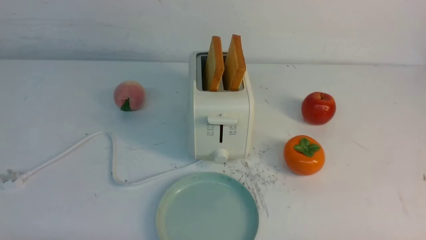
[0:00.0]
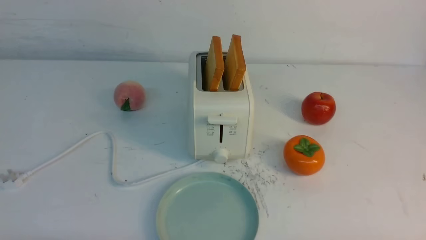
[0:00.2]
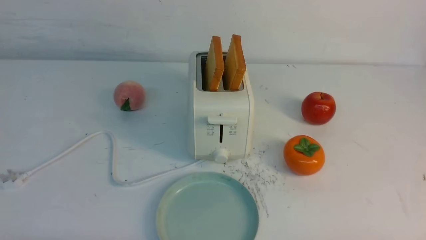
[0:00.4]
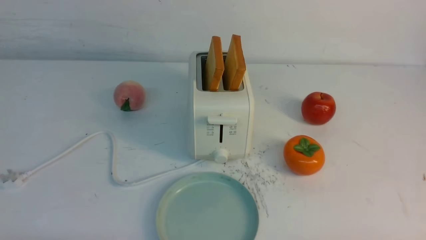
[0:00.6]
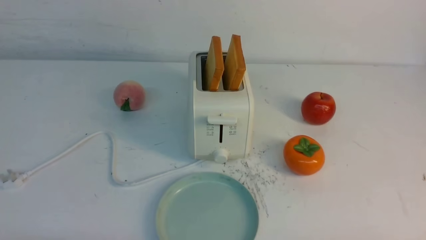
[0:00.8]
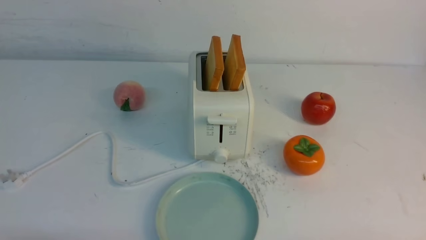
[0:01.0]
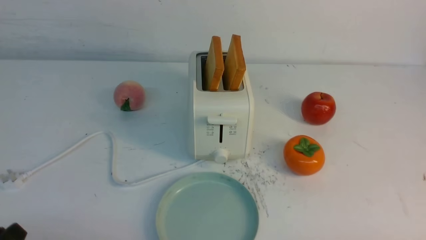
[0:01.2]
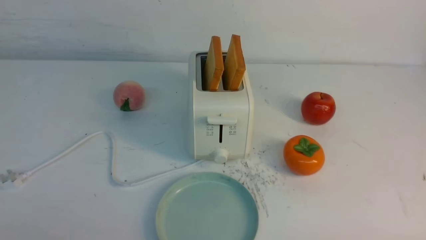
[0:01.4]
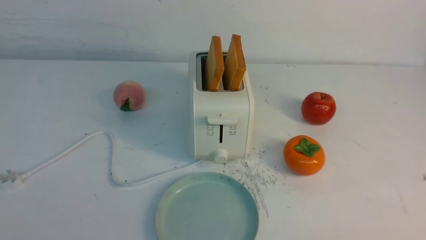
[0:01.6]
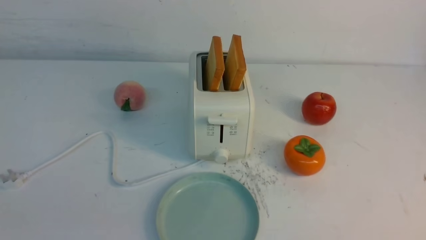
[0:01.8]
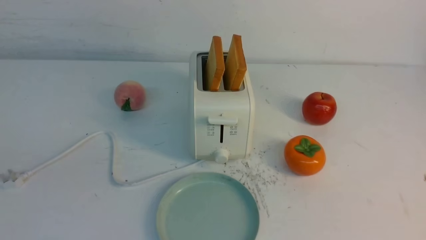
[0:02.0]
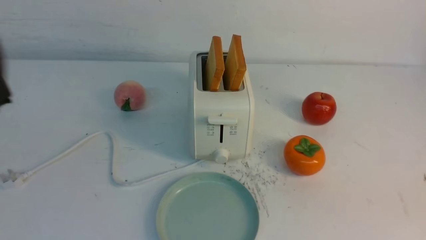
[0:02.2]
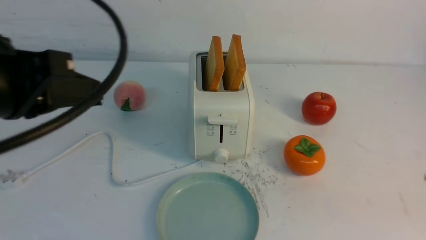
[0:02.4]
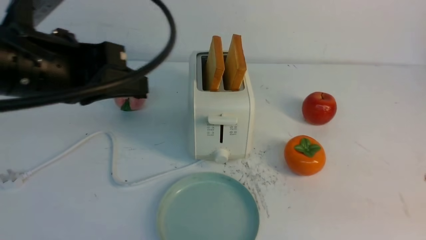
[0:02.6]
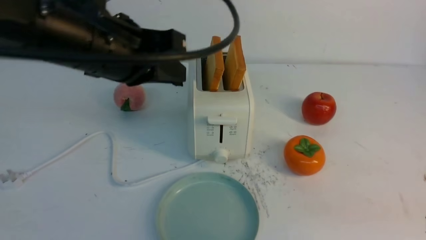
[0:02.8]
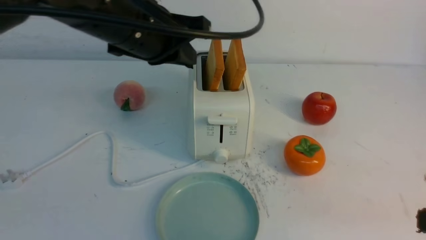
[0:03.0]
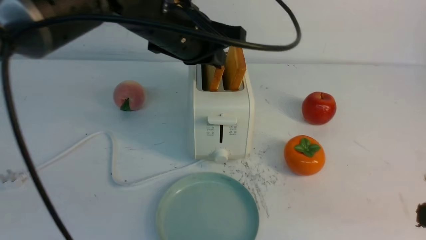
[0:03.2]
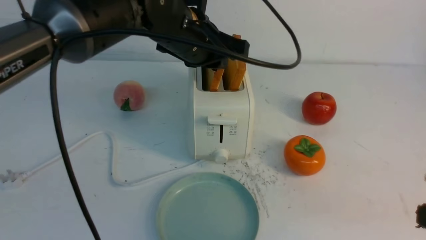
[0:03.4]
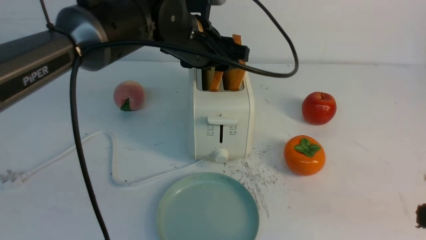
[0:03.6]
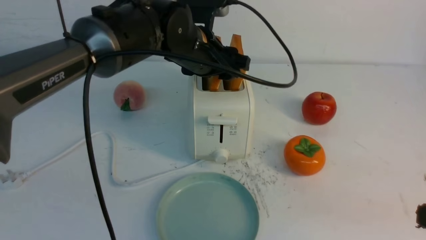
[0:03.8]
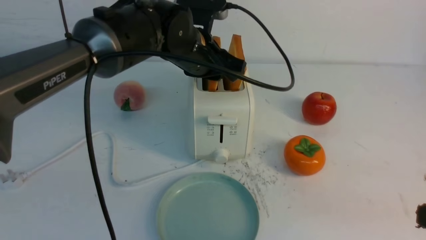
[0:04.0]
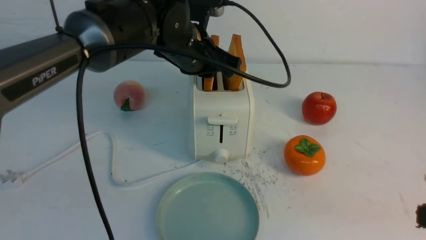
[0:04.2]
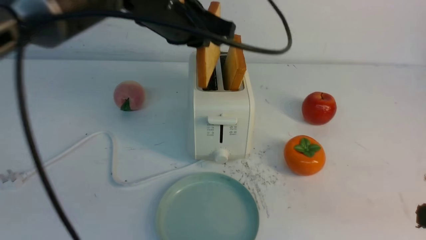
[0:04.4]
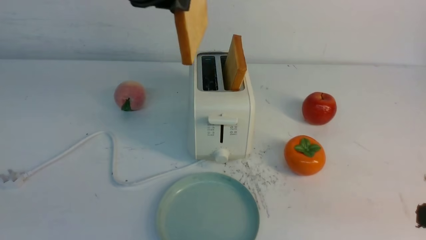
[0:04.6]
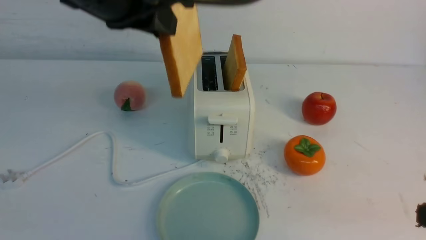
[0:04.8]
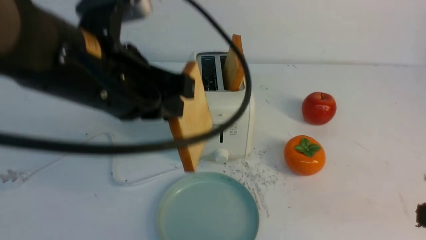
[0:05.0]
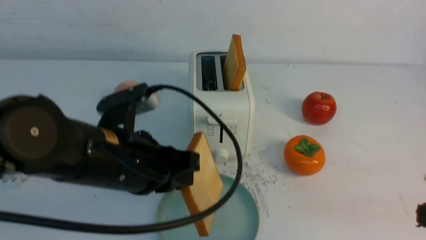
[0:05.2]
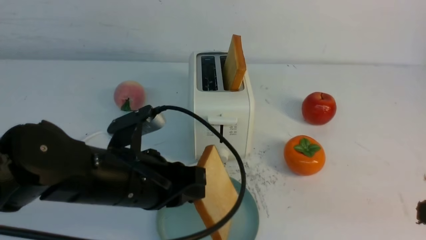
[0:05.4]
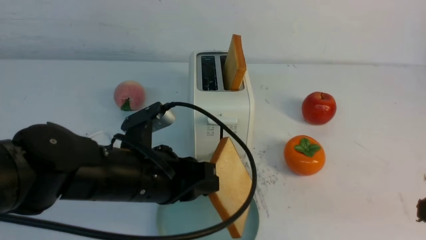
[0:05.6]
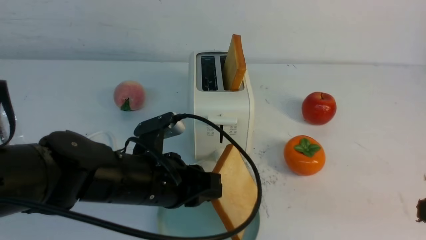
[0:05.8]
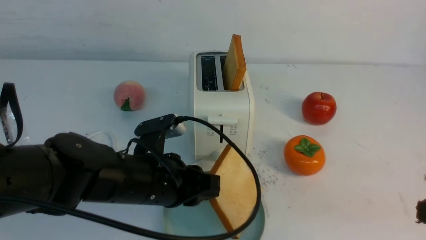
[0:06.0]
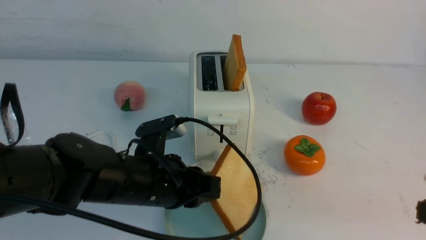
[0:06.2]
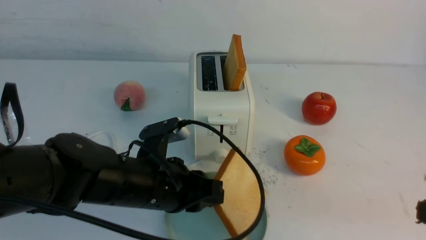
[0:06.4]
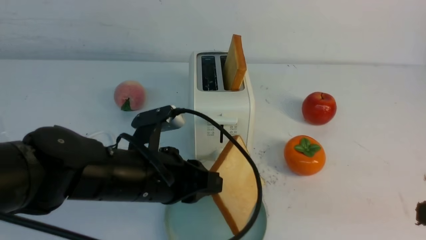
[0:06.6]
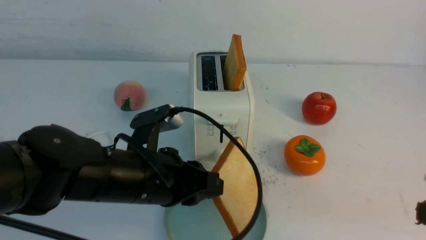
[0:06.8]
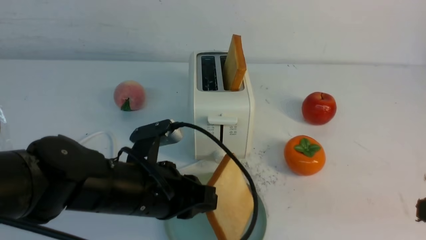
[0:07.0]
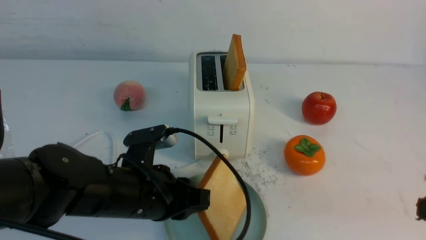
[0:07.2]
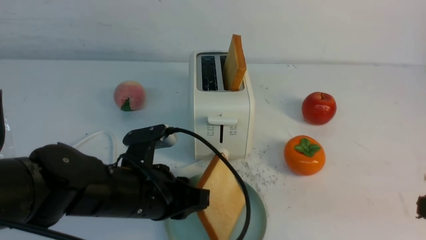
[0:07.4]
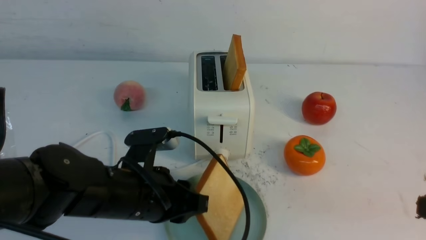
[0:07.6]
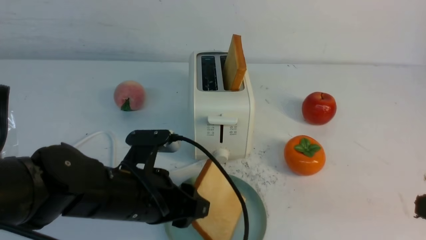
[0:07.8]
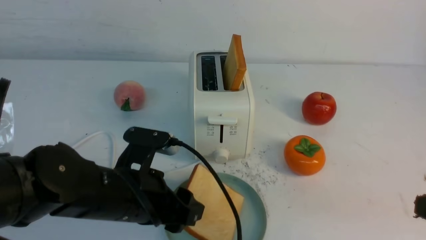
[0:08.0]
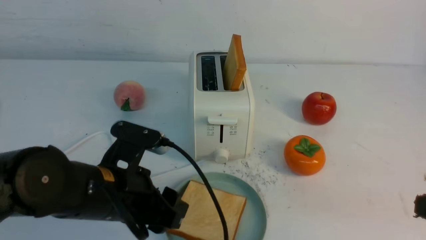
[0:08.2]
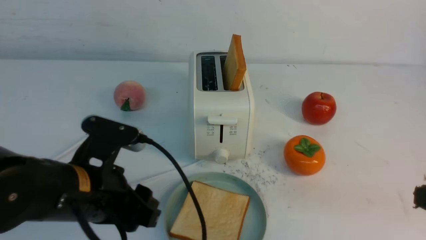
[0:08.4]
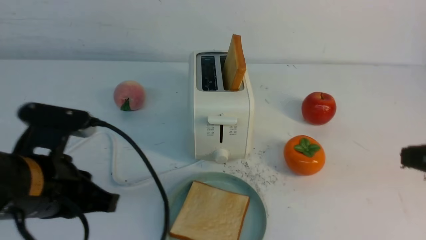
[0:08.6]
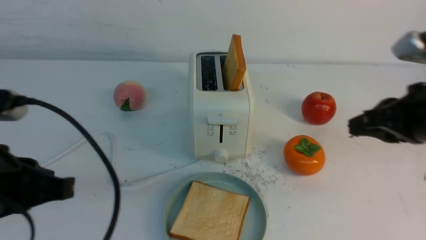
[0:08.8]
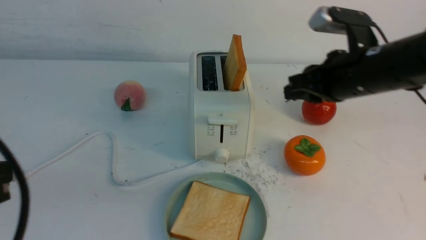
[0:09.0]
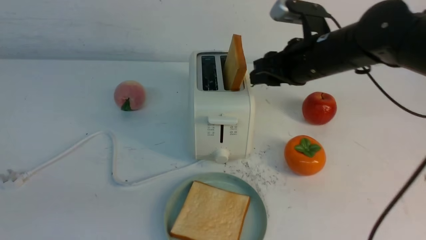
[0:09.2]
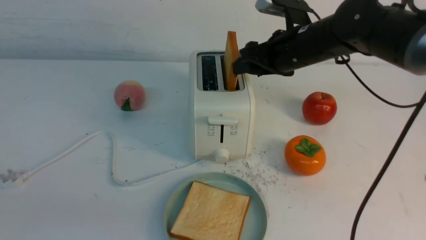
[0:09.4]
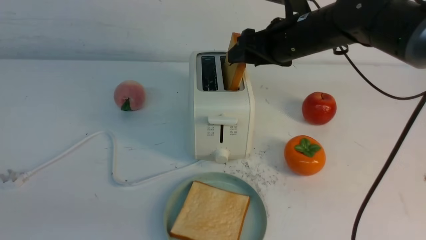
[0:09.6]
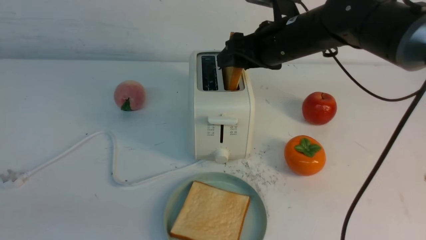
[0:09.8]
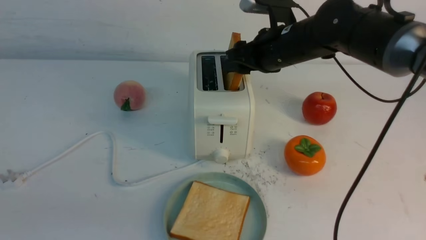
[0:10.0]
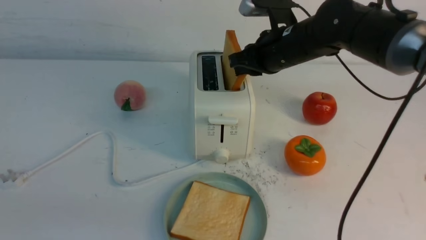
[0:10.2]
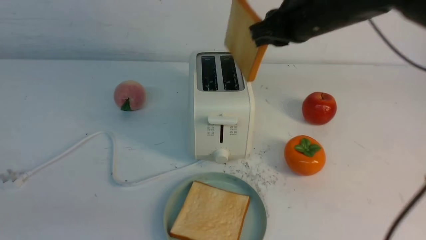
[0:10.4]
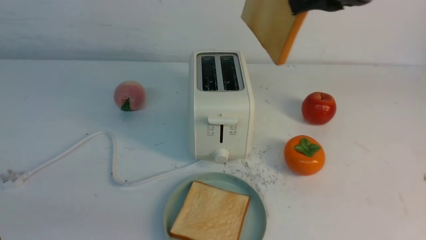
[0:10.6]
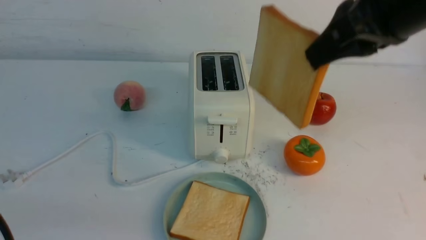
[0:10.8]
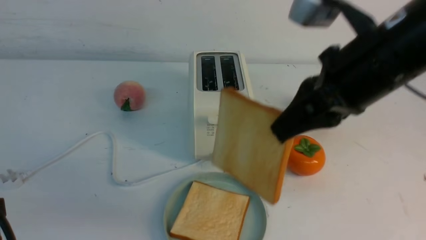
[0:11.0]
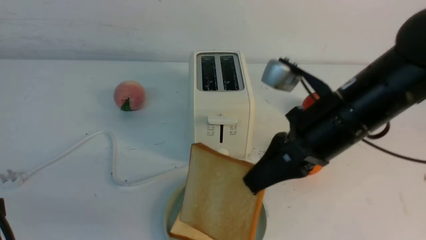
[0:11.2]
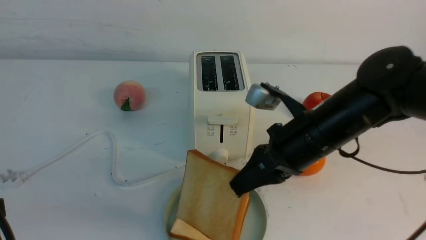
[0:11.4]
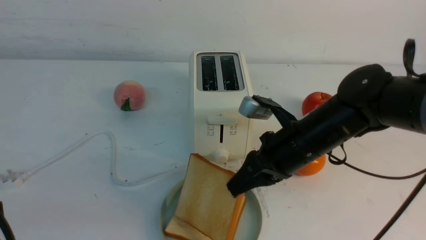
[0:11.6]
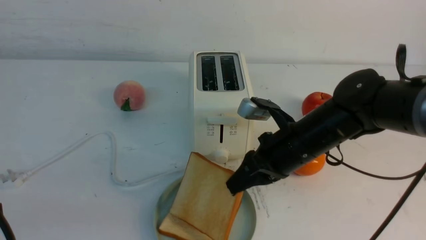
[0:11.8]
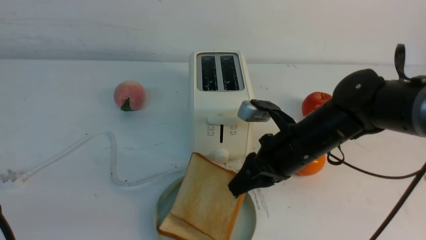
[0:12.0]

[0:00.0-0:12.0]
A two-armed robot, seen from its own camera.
Task of the whole recording: take toasted bread from bread machine on white table place on plate.
Step, 0:00.0 to 0:04.2: use the left arm to take out a slice of bread.
Step, 0:04.6 to 0:08.4: use the left arm to put a slice of bread into the empty plate.
Step, 0:08.6 to 0:10.2: use the right arm to take out a slice of bread.
0:01.6 to 0:03.0: The left gripper is displaced forward, to the right and upward by roughly 35 cm. The right gripper moves upward and forward, about 10 cm, and closes up.
0:03.0 to 0:04.4: The left gripper reaches approximately 5 cm downward, then returns, and opens and closes again.
0:04.4 to 0:06.0: The left gripper is displaced downward and backward by some 20 cm.
0:06.0 to 0:07.6: The grippers stay close to where they were, moving slightly.
0:07.6 to 0:09.0: The left gripper heads upward, to the left and backward, covering some 20 cm, and closes up. The right gripper heads forward and to the left, covering some 25 cm.
0:09.0 to 0:10.4: The right gripper goes some 5 cm upward, goes forward and returns, about 10 cm each way, and opens, then closes again.
0:10.4 to 0:12.0: The right gripper goes roughly 20 cm downward.

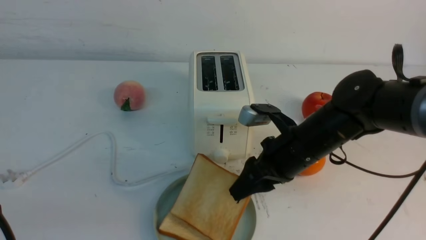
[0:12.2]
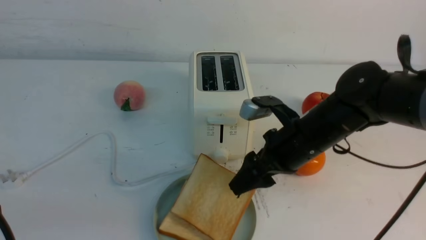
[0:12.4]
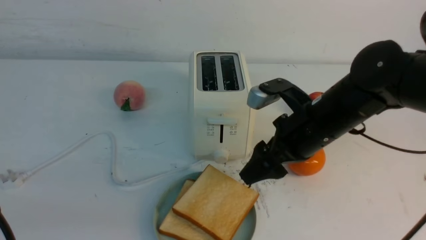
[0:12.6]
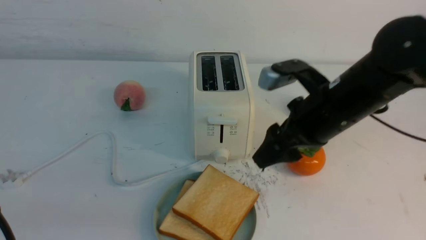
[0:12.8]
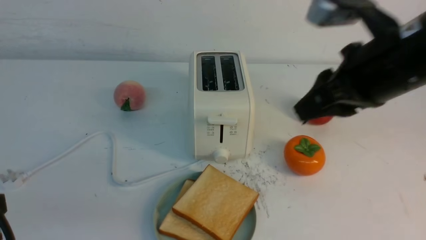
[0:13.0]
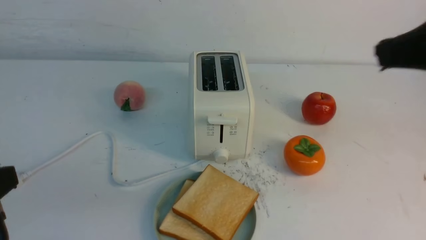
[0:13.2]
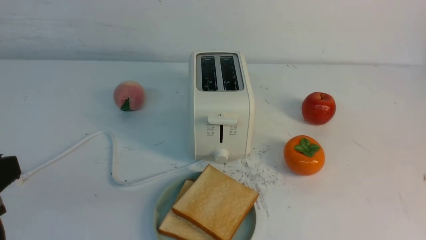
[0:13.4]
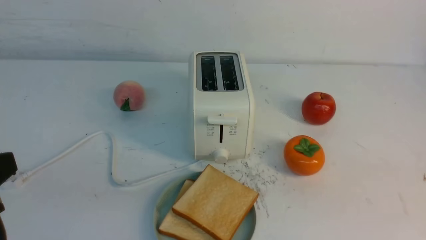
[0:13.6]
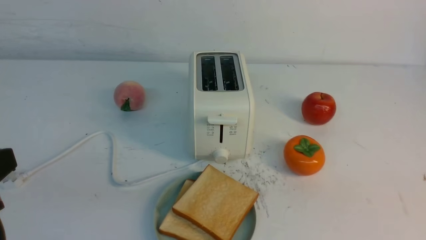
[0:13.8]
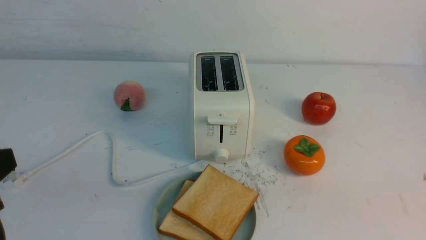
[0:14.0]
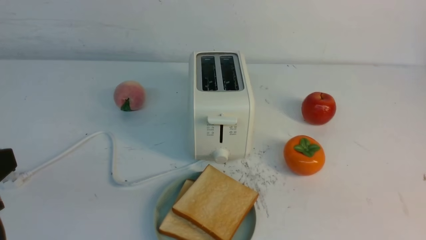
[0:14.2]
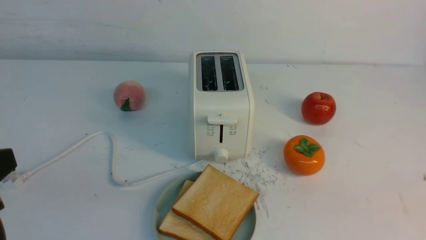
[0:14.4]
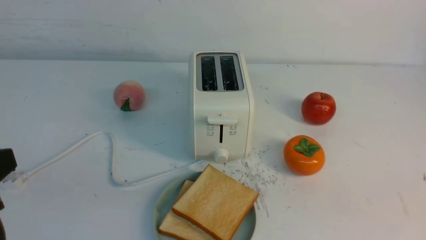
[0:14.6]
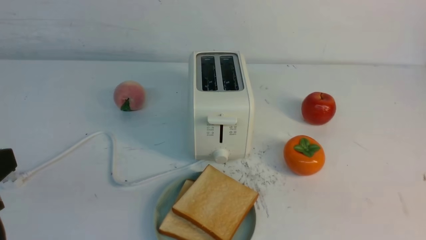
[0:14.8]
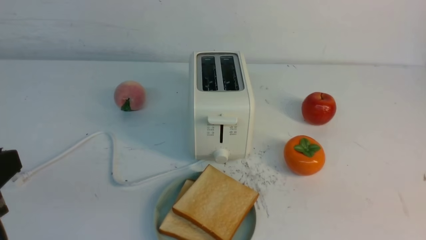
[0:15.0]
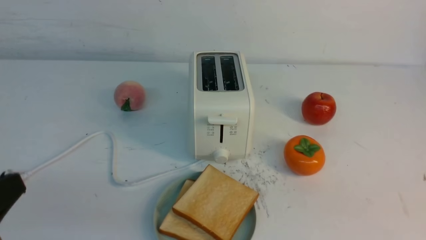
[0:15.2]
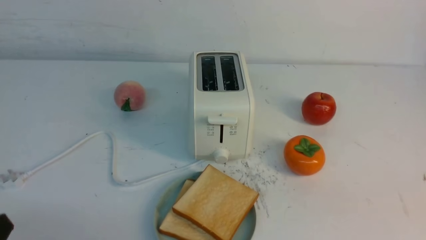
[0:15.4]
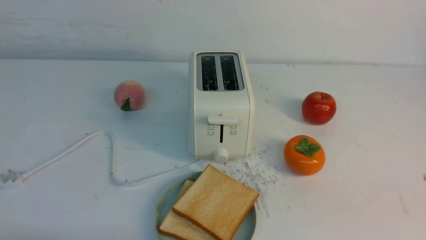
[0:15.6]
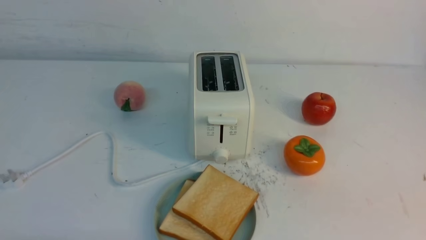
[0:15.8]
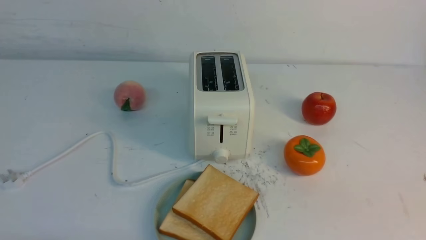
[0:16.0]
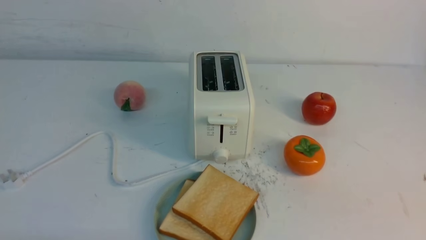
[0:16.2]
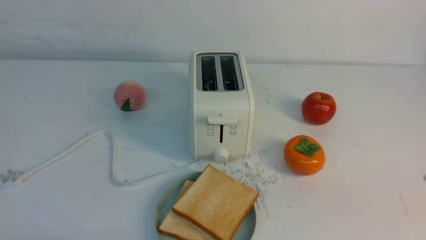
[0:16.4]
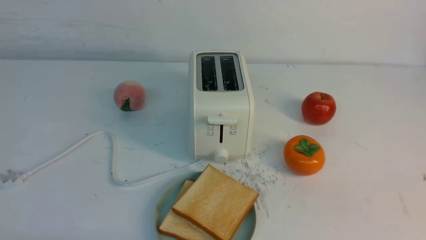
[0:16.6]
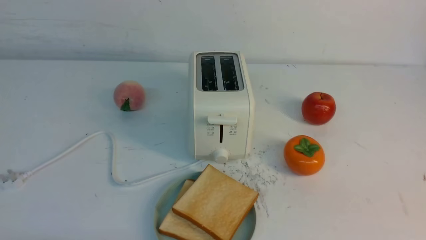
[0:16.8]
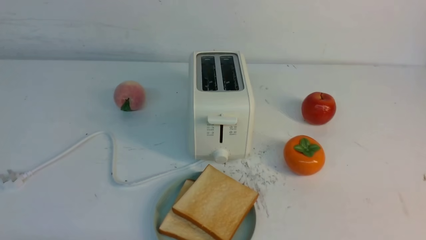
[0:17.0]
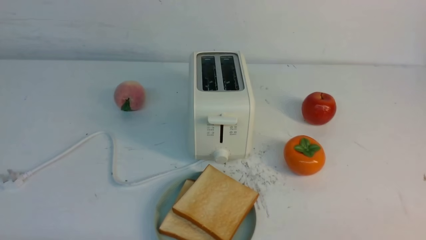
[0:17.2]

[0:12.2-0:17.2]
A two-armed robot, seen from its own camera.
Task of the whole recording: take toasted bread from bread machine on white table place on plate.
0:12.2 to 0:13.8: The right gripper is displaced backward and to the right by about 30 cm, and closes up.
